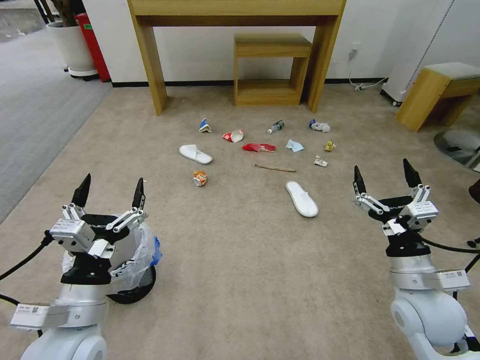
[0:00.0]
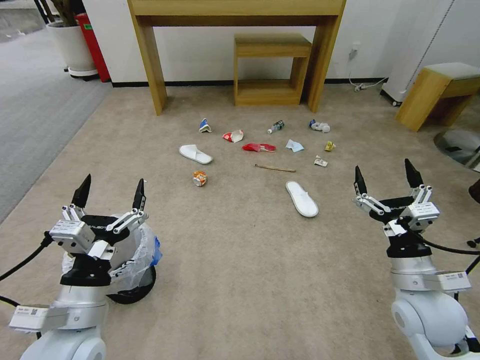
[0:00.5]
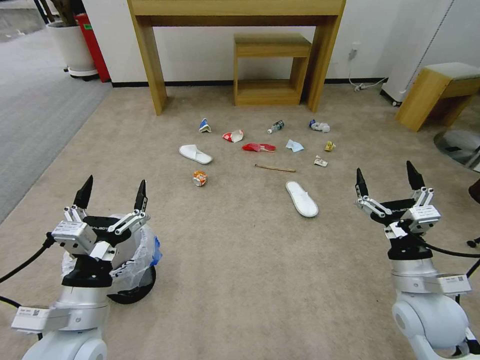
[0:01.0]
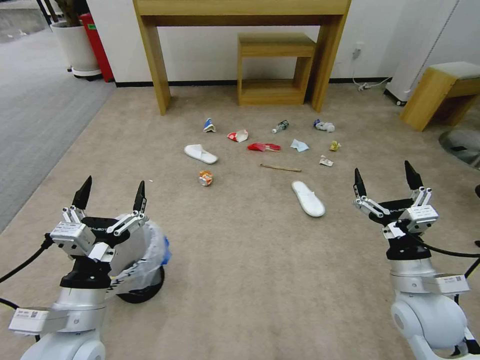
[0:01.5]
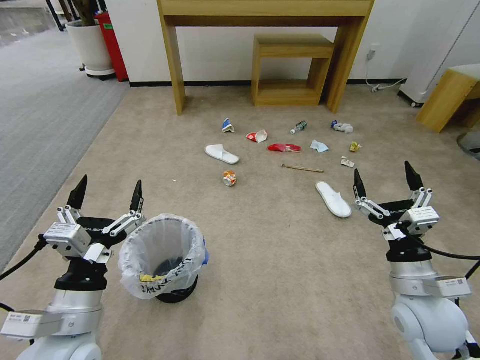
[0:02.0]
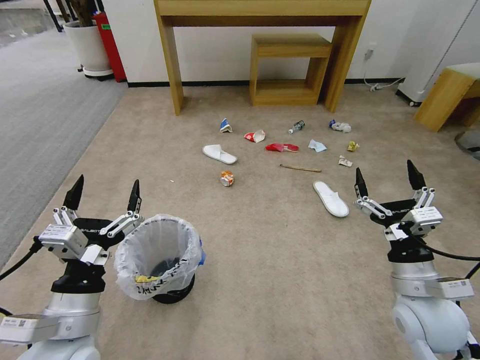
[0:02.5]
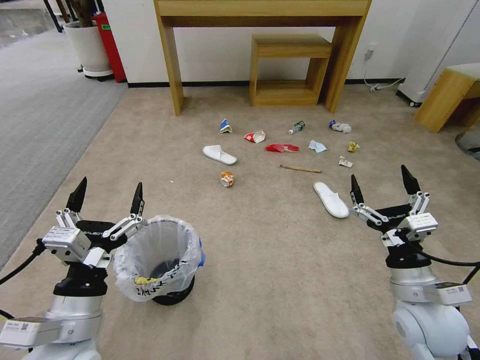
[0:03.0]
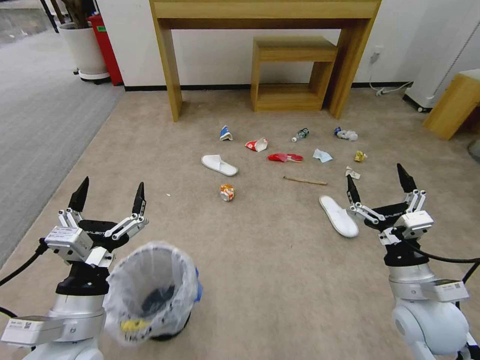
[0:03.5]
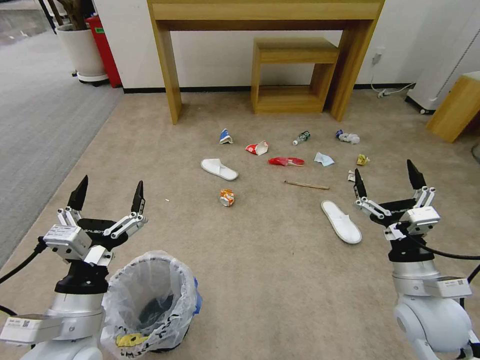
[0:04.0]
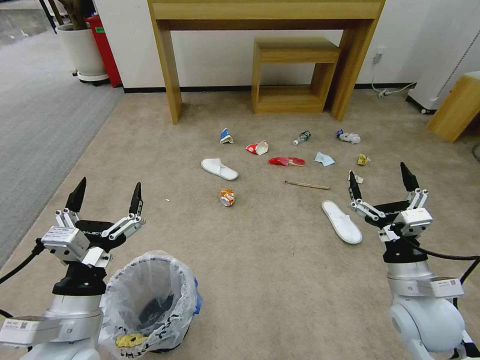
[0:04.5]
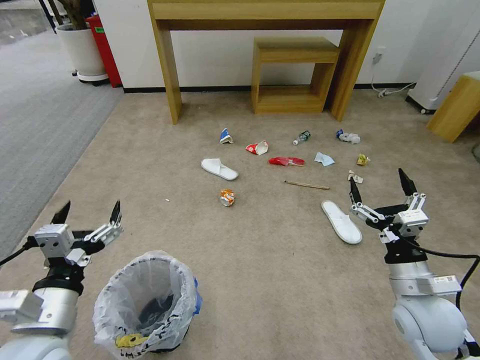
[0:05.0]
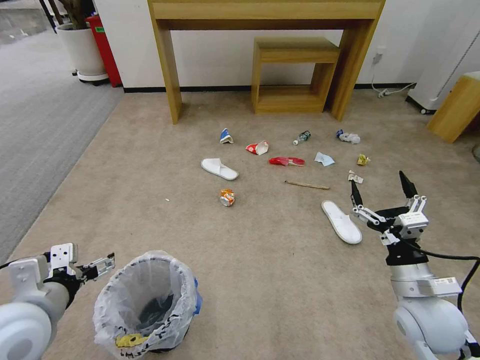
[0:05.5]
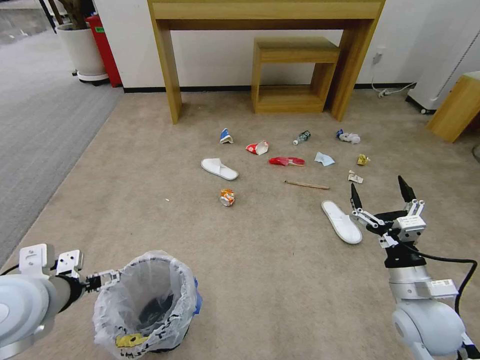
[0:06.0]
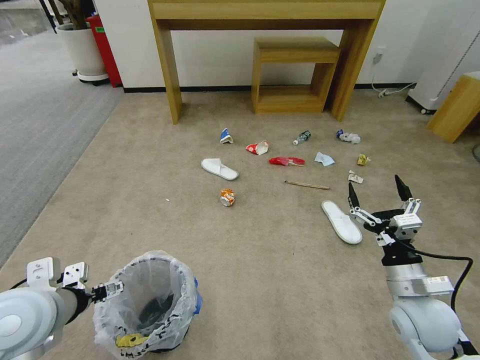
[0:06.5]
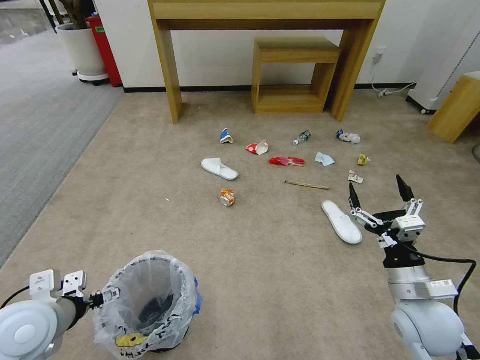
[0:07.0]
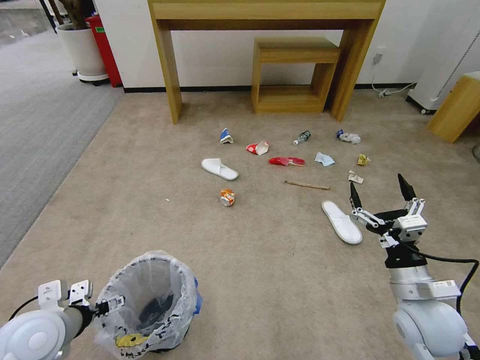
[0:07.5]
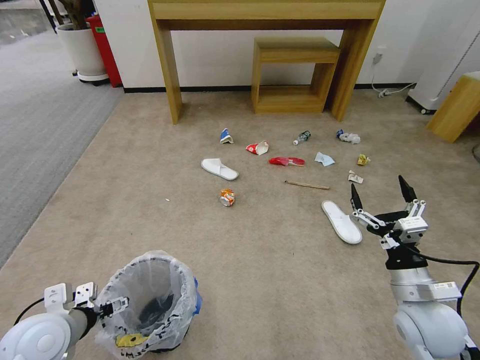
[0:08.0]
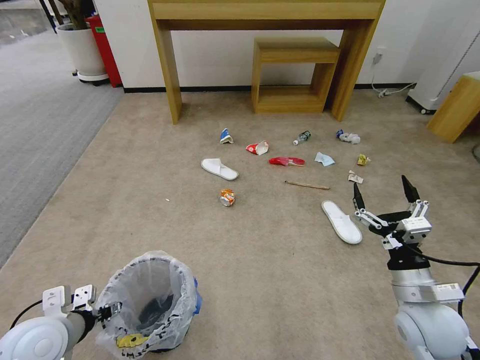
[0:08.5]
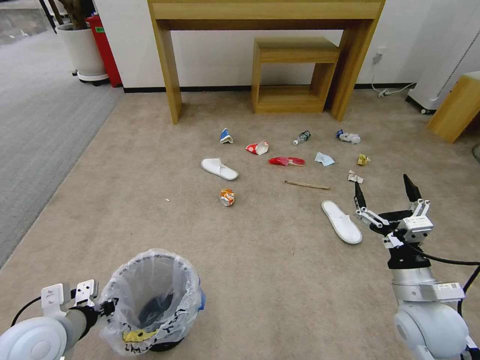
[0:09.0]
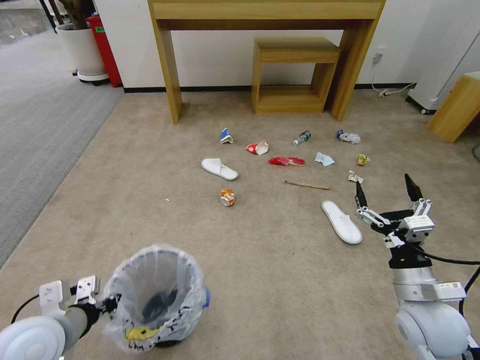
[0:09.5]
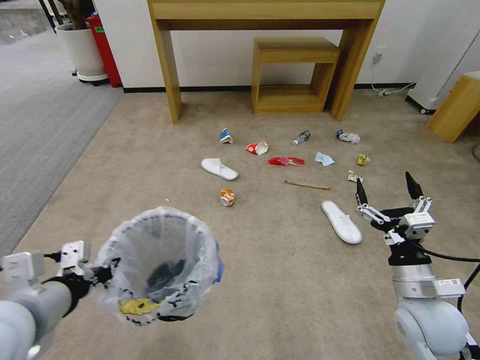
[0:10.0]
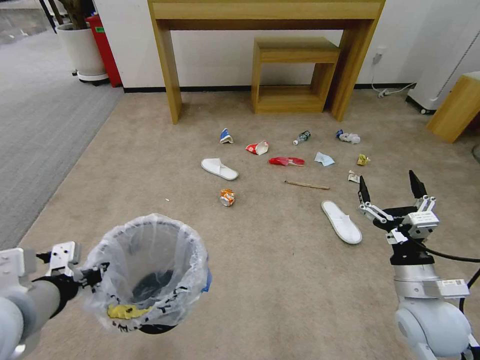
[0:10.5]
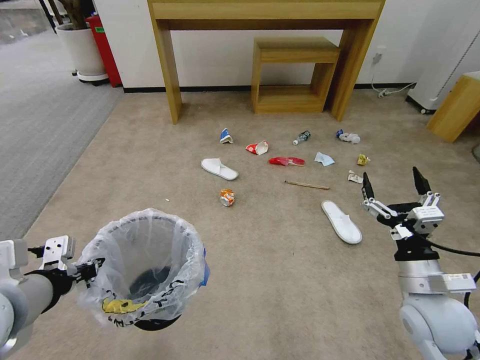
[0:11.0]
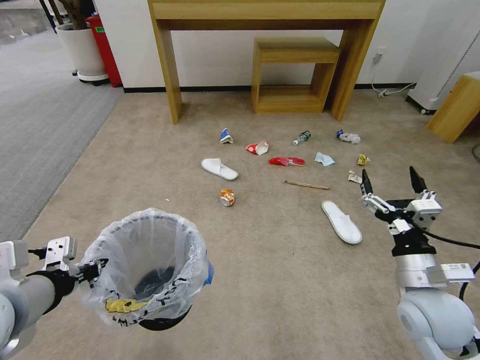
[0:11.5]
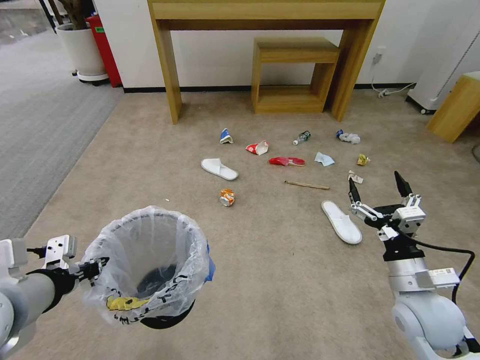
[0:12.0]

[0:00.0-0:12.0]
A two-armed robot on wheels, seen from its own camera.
Task of the whole recording: Pick up the trash bin and place the garbage on the floor into it.
0:04.0 to 0:06.0: The left gripper is displaced to the left, upward and forward by about 10 cm.
0:06.0 to 0:08.0: The left gripper moves downward, some 10 cm.
0:08.0 to 0:10.0: The left gripper shifts some 15 cm upward, and closes up.
0:10.0 to 0:12.0: The grippers stay close to where they were, moving slightly.

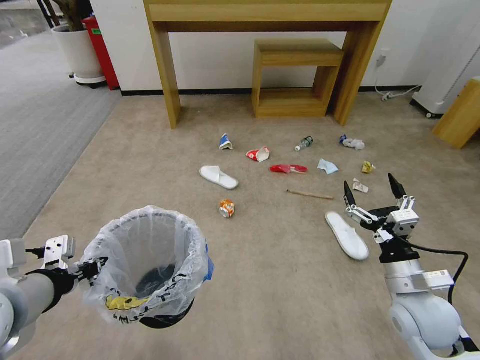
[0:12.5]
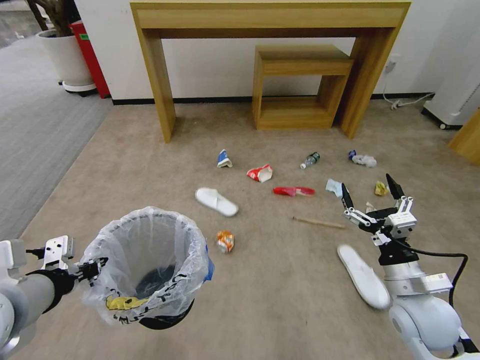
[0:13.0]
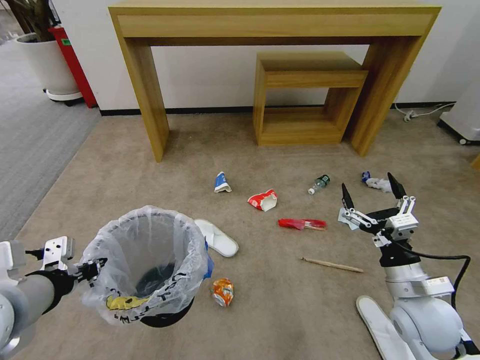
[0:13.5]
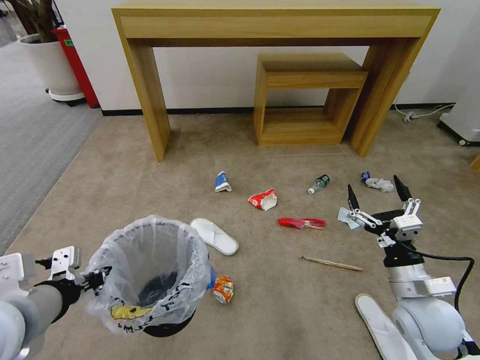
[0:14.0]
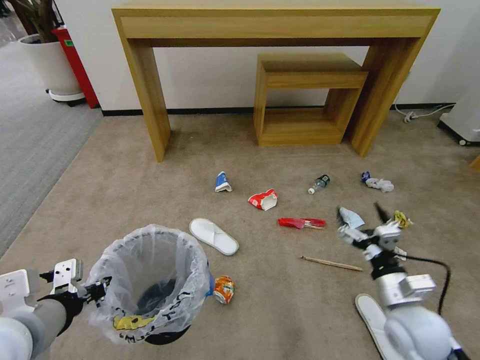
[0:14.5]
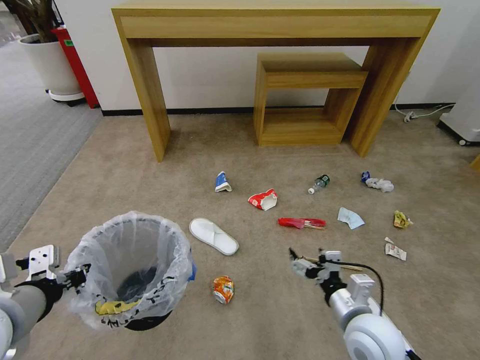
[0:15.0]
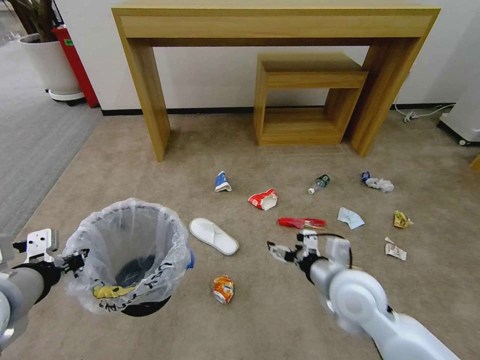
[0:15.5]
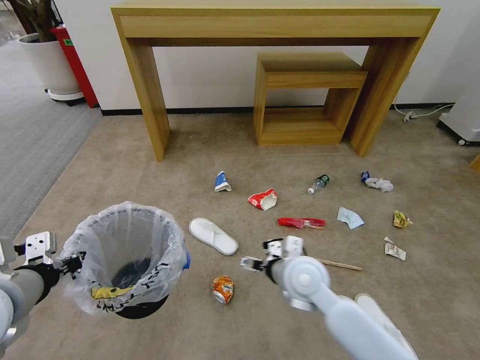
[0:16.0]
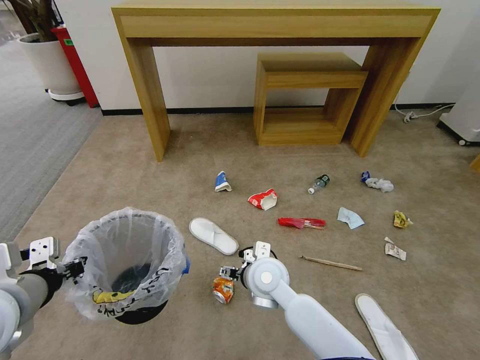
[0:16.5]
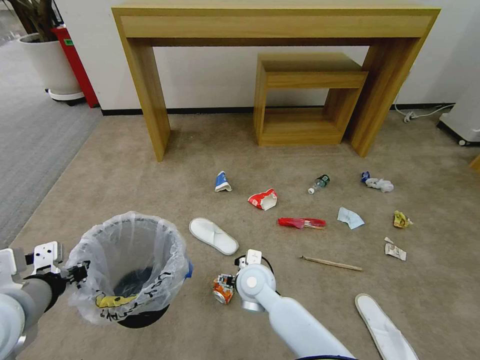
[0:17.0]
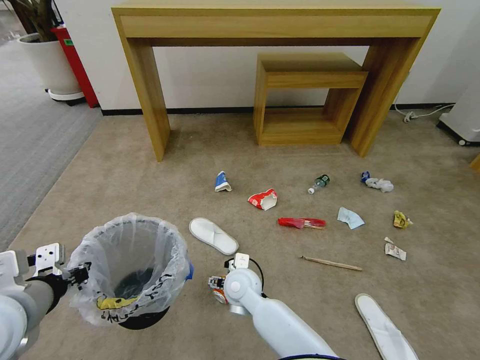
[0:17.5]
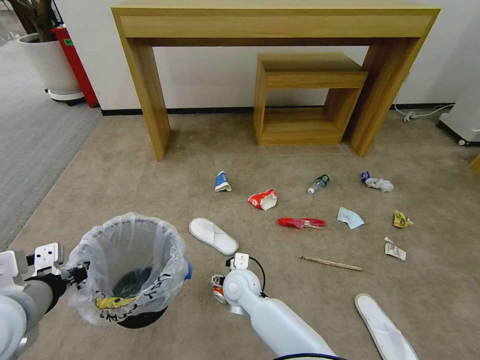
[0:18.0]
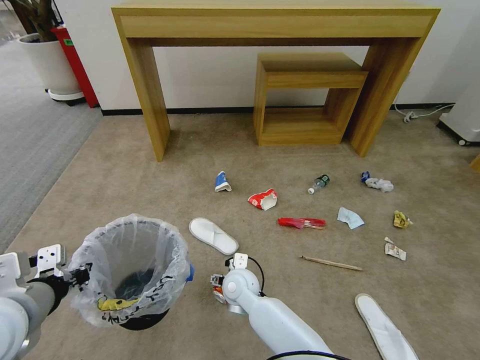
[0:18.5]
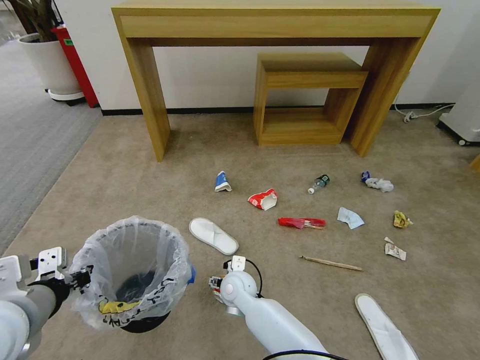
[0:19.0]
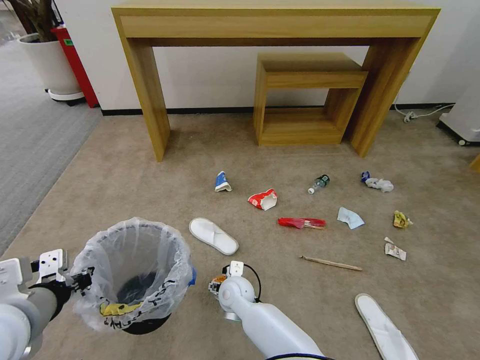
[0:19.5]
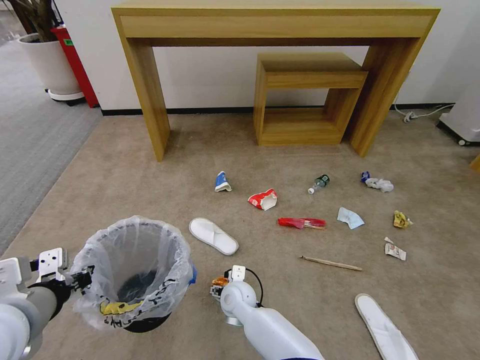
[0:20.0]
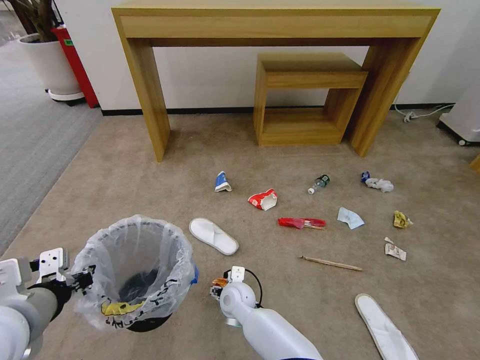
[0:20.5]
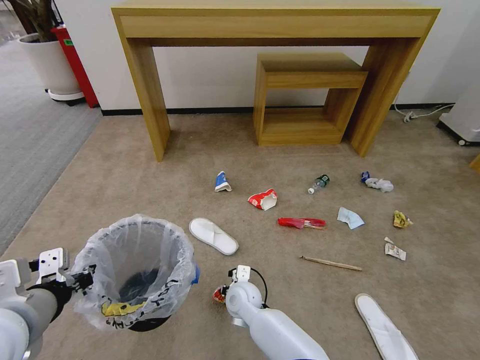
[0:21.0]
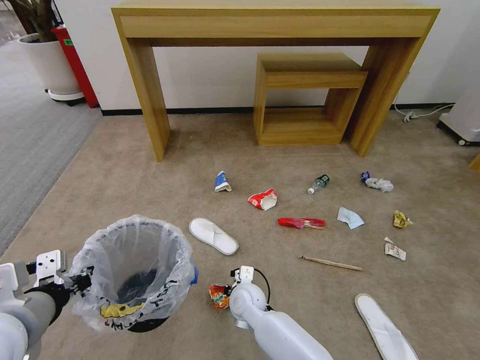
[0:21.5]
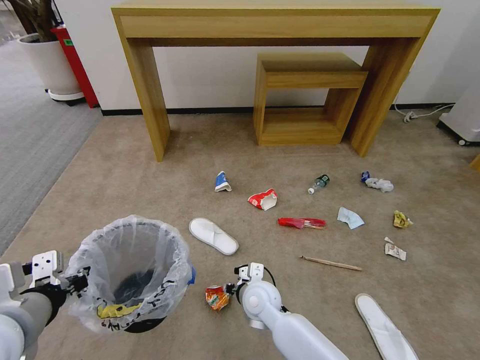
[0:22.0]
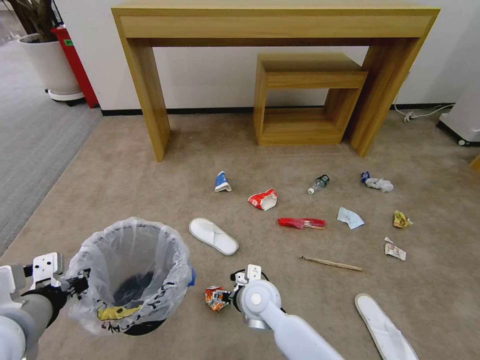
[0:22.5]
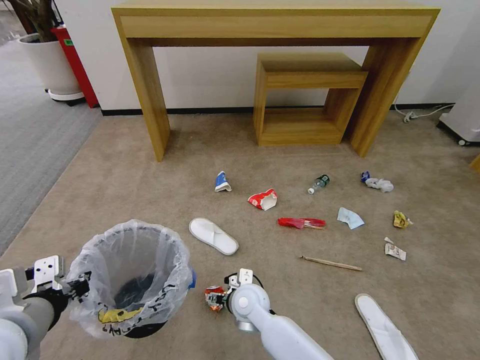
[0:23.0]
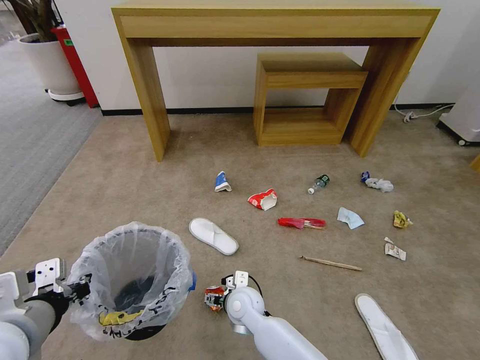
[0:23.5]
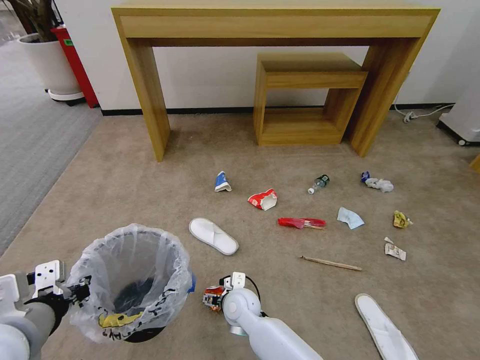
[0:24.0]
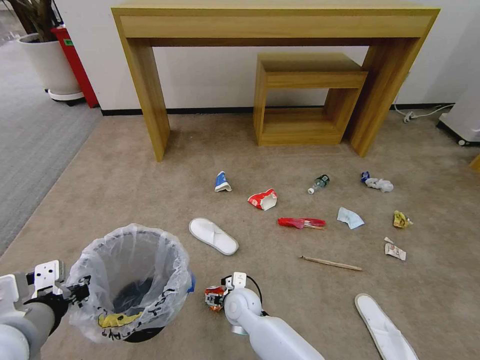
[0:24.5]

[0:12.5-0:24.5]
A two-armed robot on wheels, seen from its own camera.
Task of the whole recording: Pick up the trash bin and place the garbage on the floor into it.
0:14.5 to 0:16.5: The right gripper heads to the left, covering roughly 30 cm.
0:16.5 to 0:18.5: The right gripper travels downward and to the left by approximately 10 cm.
0:18.5 to 0:20.5: The right gripper shifts some 5 cm downward.
0:20.5 to 0:22.5: The right gripper heads upward and to the right, covering approximately 10 cm, and closes, then opens again.
0:22.5 to 0:24.5: The right gripper shifts roughly 10 cm downward.

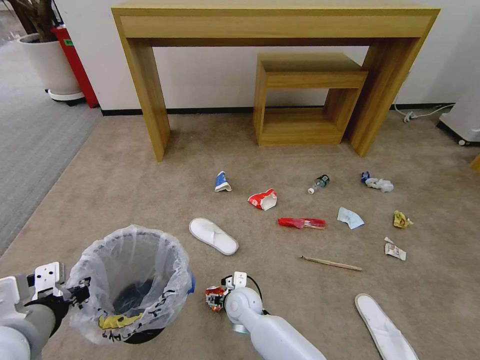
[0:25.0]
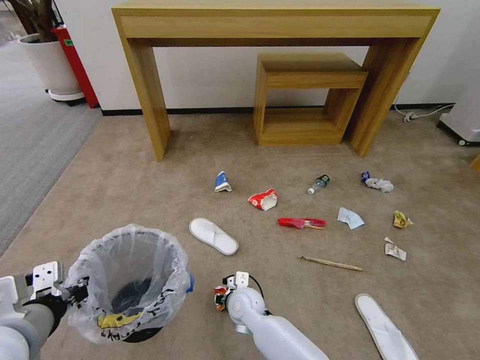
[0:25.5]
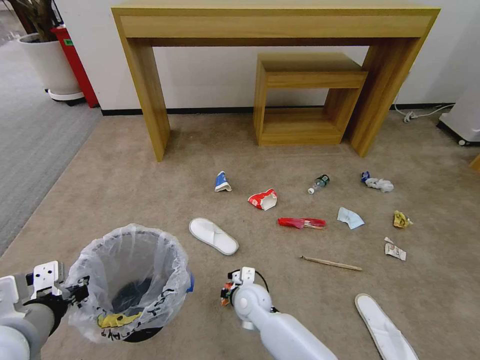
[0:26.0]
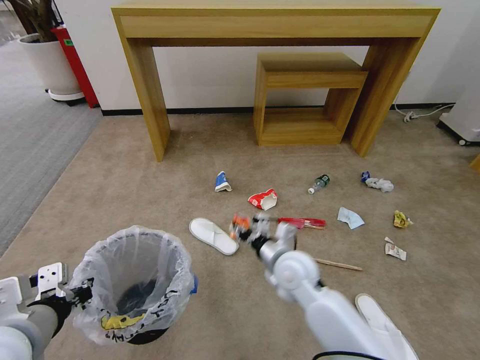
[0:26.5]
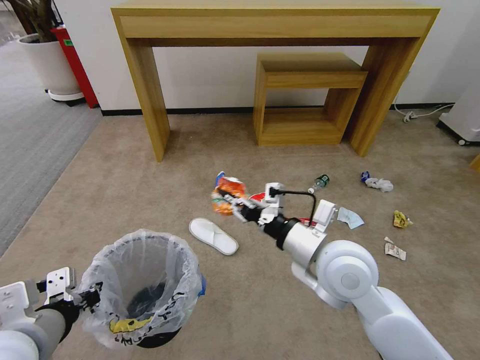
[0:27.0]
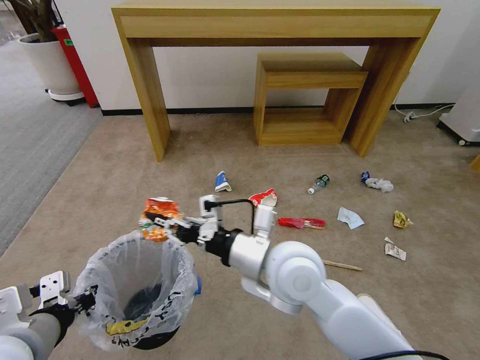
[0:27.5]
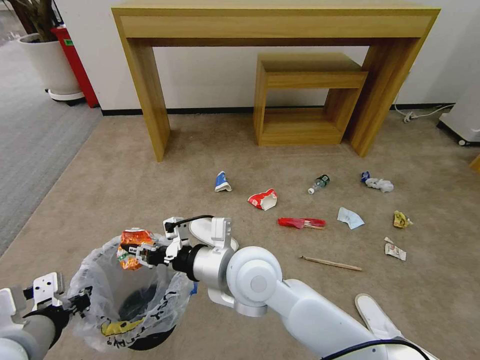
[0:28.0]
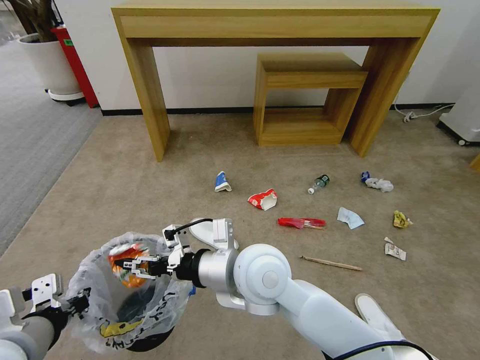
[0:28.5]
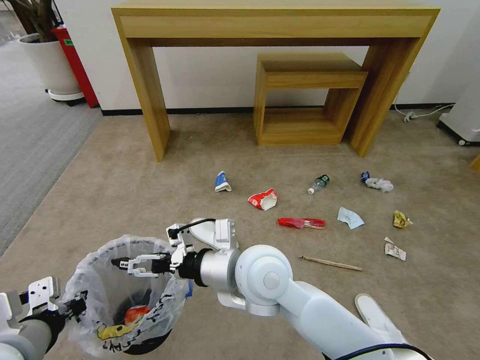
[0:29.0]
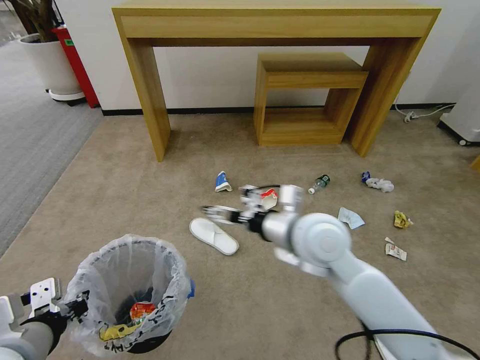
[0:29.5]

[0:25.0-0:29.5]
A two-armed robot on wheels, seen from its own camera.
Task of the whole recording: Pick up the trash bin and place the garbage on the floor into it.
0:25.0 to 0:27.0: The right gripper travels upward and to the right by some 35 cm, and closes up.
0:27.0 to 0:29.5: The right gripper reaches roughly 15 cm to the left, then returns, and opens up.
